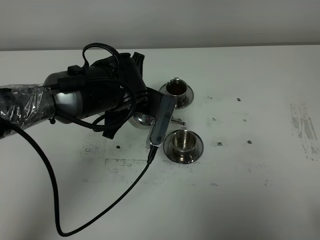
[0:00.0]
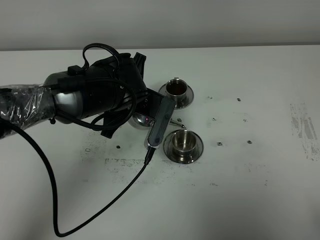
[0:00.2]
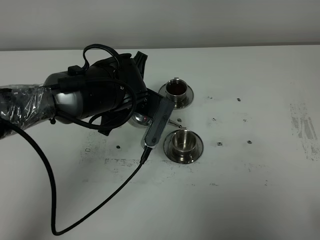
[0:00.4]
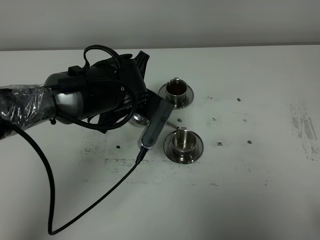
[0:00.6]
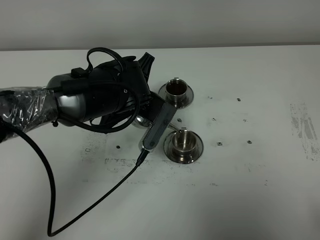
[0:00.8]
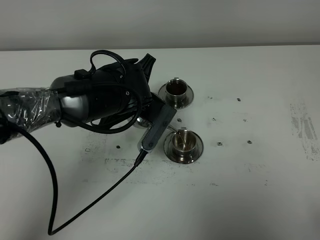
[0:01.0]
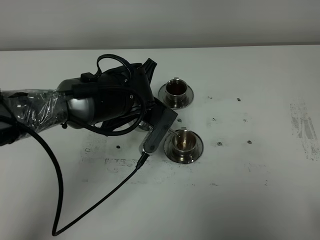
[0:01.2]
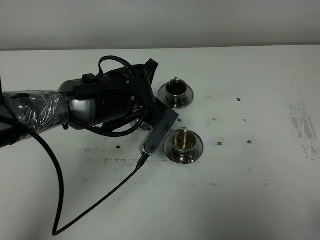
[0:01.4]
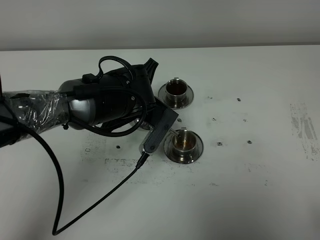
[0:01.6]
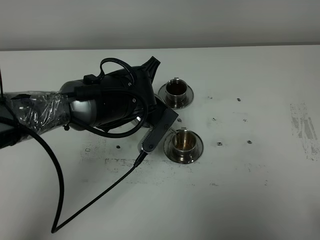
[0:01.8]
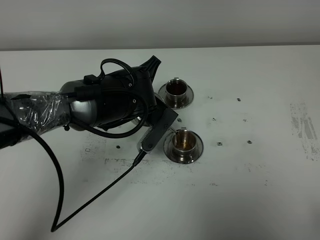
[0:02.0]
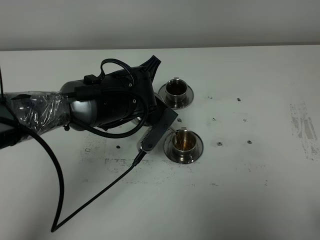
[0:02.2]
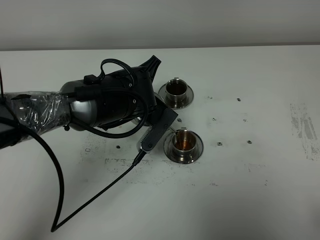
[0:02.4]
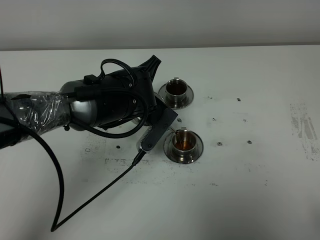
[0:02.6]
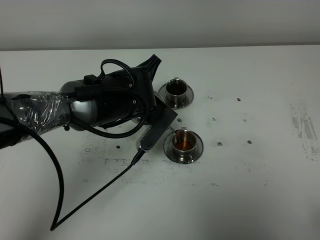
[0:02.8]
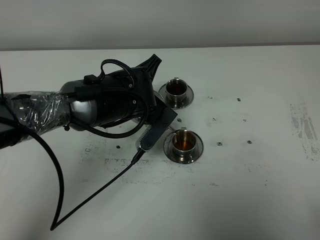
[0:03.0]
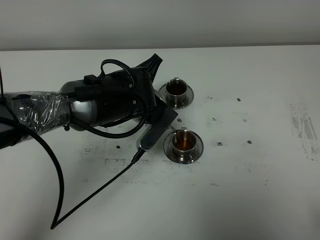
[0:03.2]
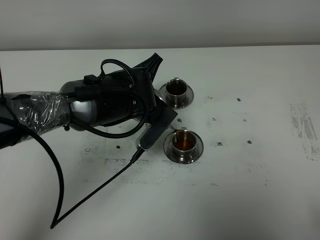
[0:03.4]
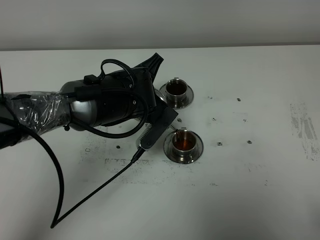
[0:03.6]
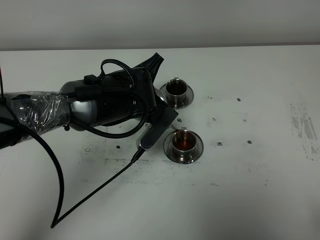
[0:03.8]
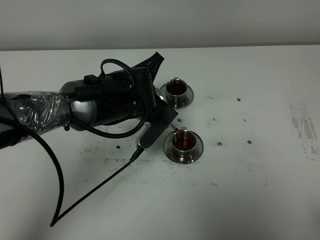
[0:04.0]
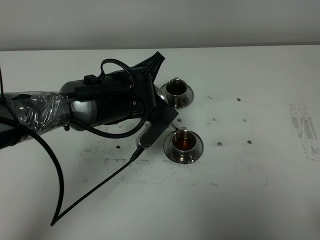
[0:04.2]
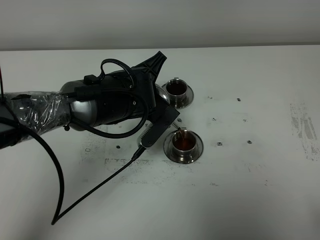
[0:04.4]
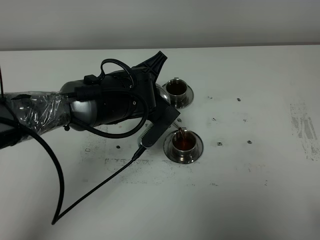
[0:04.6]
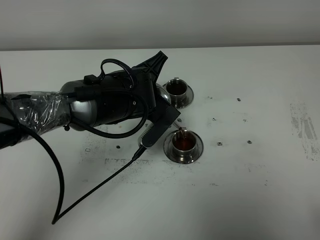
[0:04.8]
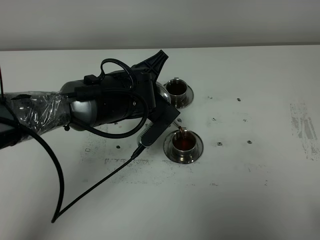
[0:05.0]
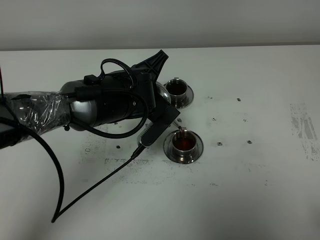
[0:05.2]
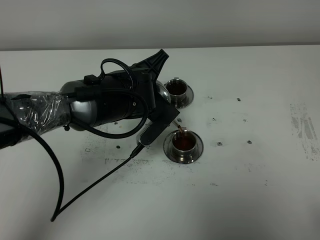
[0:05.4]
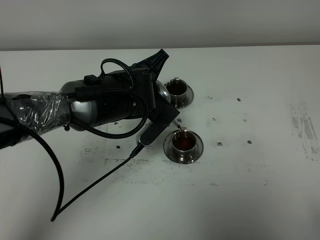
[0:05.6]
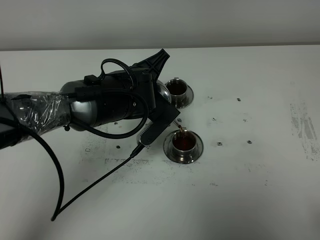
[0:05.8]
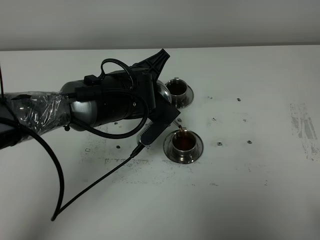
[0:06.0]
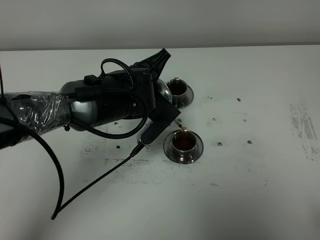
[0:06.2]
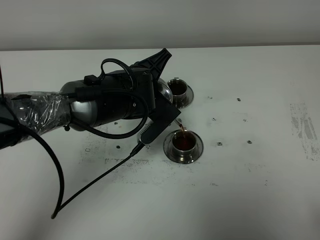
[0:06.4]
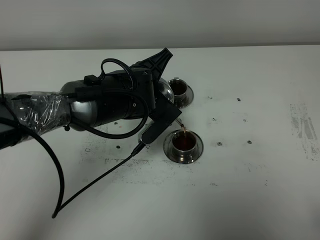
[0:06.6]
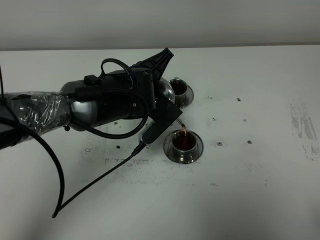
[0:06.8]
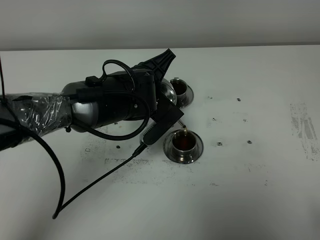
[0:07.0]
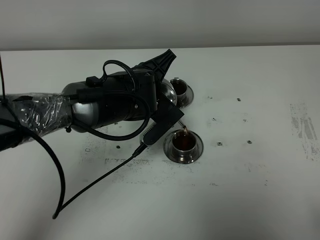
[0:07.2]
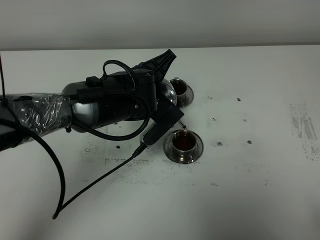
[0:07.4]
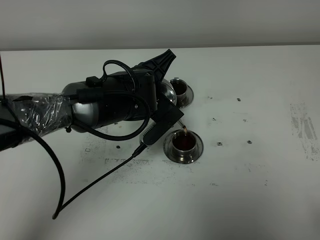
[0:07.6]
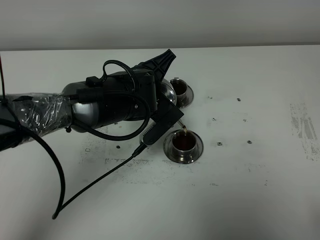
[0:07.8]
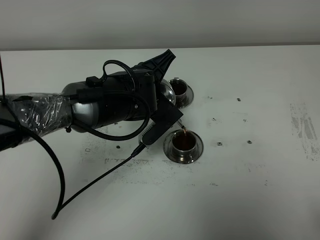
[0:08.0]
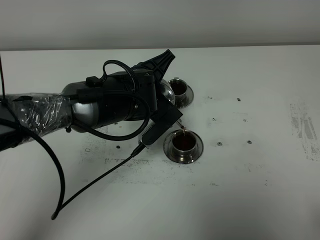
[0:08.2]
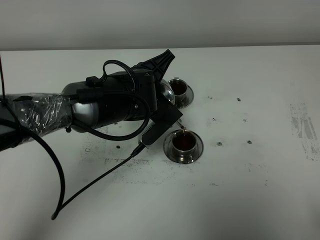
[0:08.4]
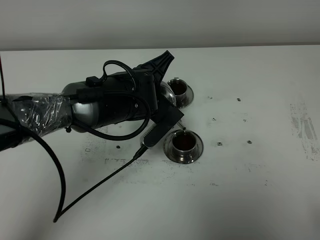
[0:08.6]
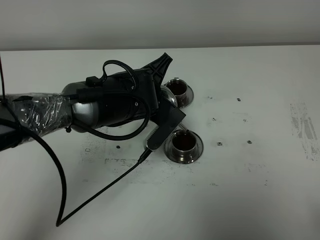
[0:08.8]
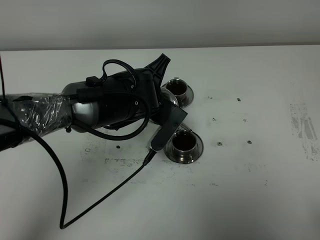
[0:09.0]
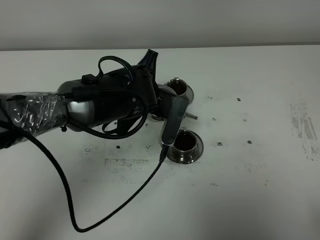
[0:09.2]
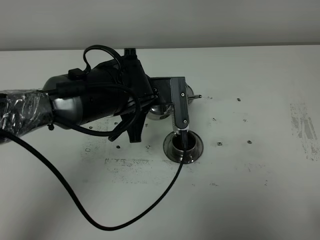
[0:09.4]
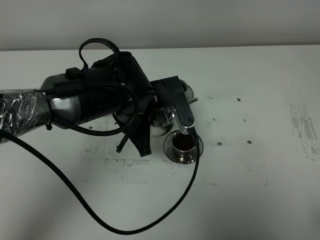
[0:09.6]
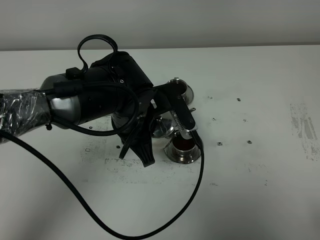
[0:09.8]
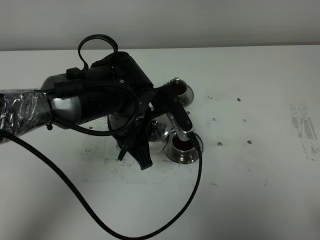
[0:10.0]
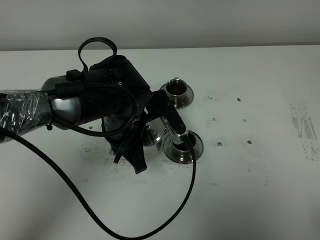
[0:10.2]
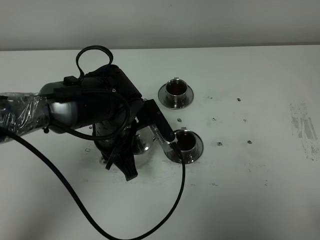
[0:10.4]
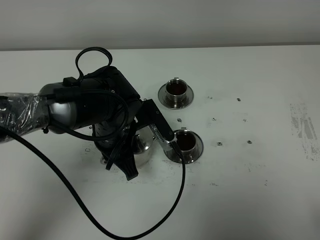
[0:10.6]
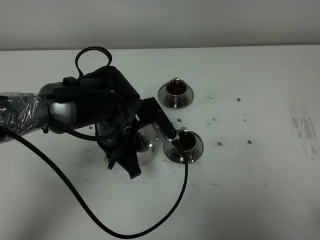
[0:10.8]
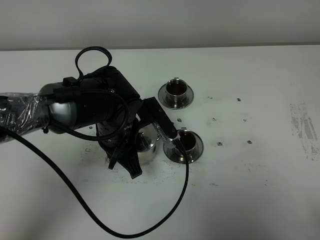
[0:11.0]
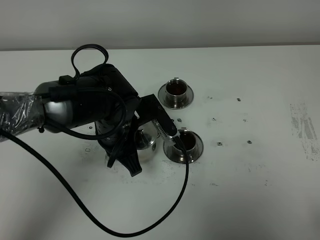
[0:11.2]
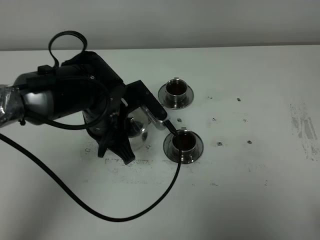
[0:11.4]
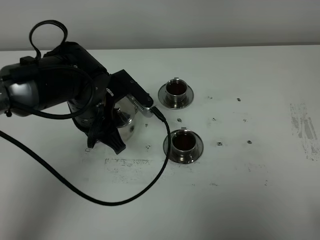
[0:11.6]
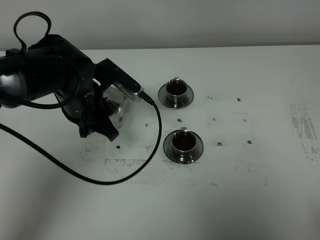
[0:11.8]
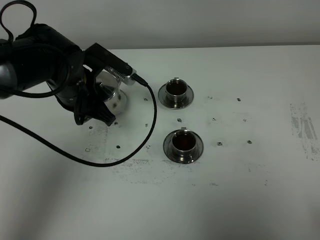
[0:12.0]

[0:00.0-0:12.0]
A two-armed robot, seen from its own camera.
Task of the whole recording: grasp the stainless steel teapot and pour the tea into the two stainless steel teacups one by one, put the stainless steel teapot back in its original place.
Step, 0:00.0 to 0:09.4: Pour tea into the teacup with the left gripper.
0:00.0 to 0:01.6: The grippers stay close to where they were, moving slightly.
0:01.6 to 0:03.0: The grippers stay close to where they were, moving slightly.
0:03.0 to 0:04.4: The two grippers keep their place.
0:04.4 to 0:06.0: Neither gripper changes place.
0:06.0 to 0:07.6: The two grippers keep their place.
0:07.6 to 0:09.0: The grippers move only a little.
0:09.0 to 0:10.4: The left gripper changes place by roughly 5 cm.
0:10.4 to 0:12.0: The left gripper moves to the left and forward, about 10 cm.

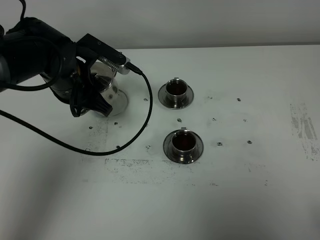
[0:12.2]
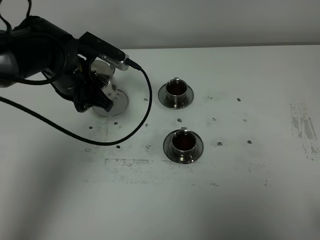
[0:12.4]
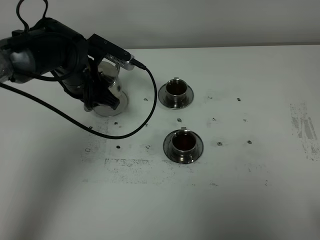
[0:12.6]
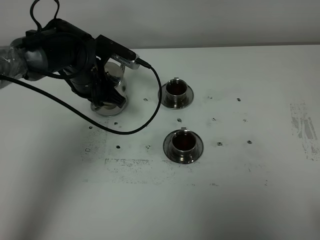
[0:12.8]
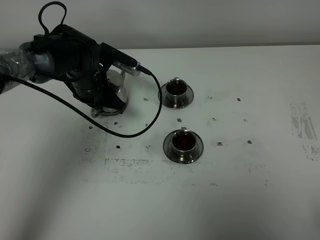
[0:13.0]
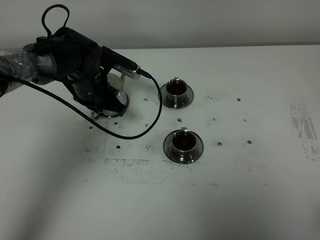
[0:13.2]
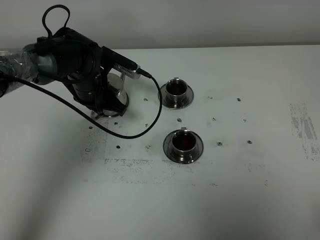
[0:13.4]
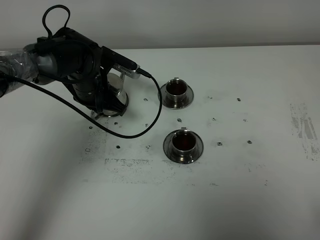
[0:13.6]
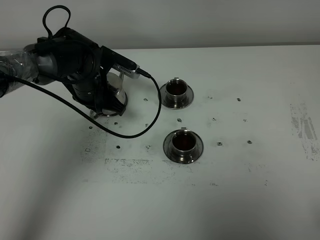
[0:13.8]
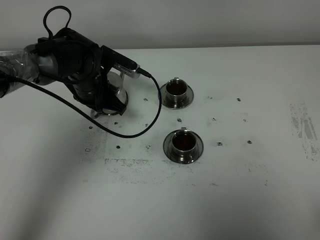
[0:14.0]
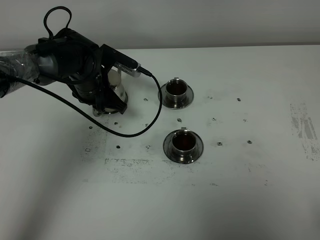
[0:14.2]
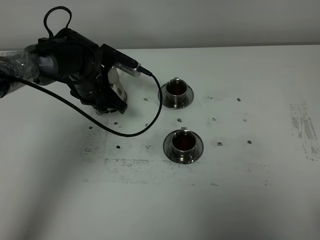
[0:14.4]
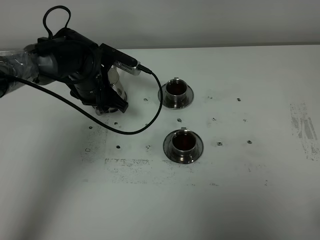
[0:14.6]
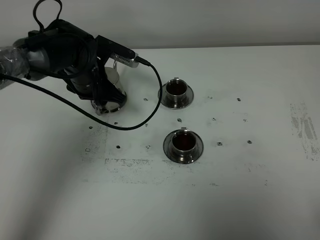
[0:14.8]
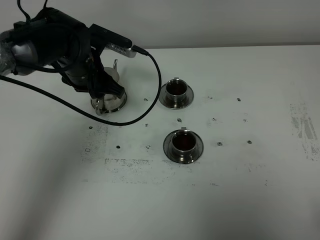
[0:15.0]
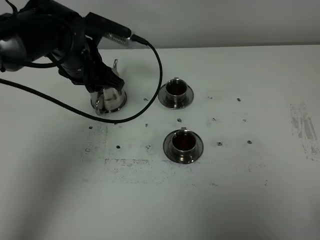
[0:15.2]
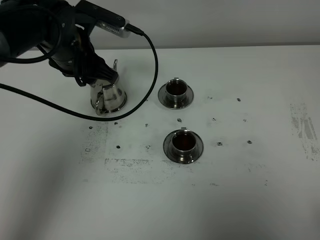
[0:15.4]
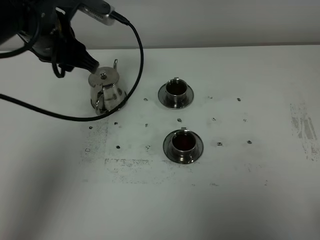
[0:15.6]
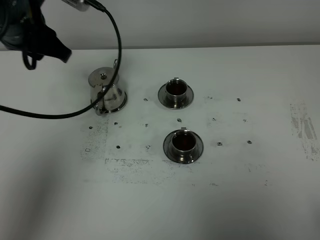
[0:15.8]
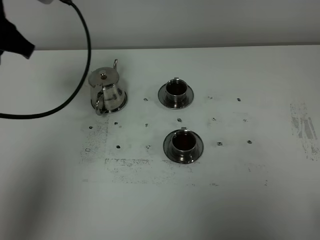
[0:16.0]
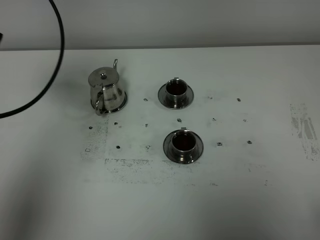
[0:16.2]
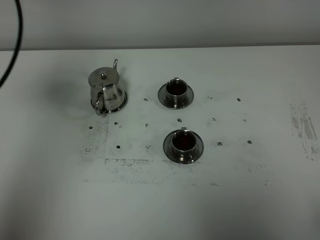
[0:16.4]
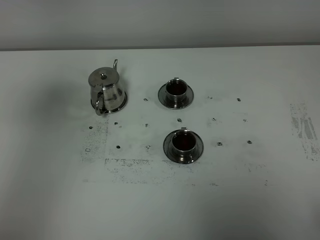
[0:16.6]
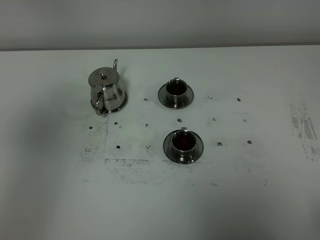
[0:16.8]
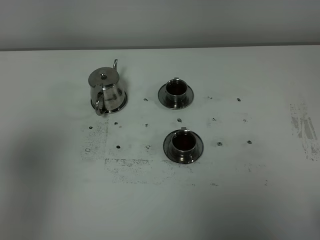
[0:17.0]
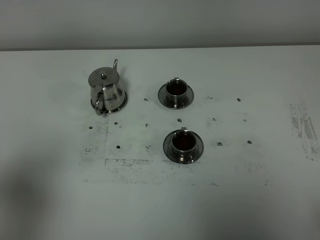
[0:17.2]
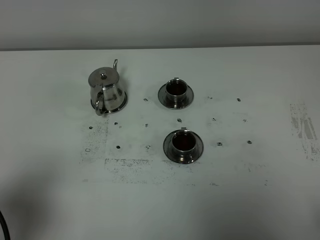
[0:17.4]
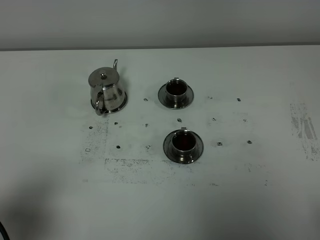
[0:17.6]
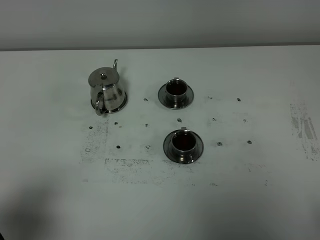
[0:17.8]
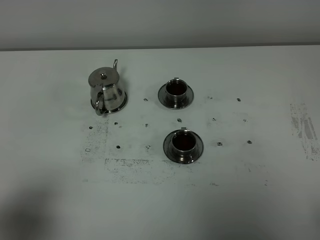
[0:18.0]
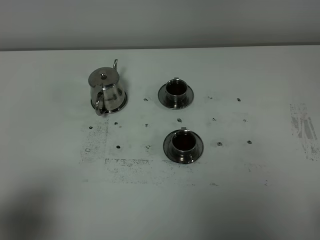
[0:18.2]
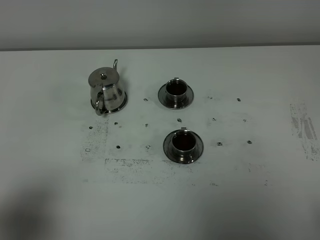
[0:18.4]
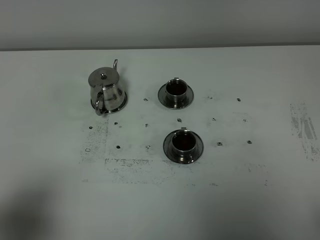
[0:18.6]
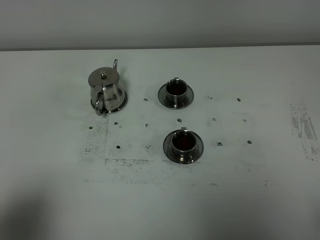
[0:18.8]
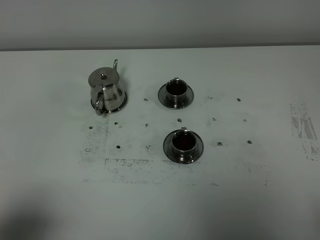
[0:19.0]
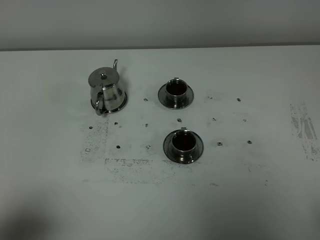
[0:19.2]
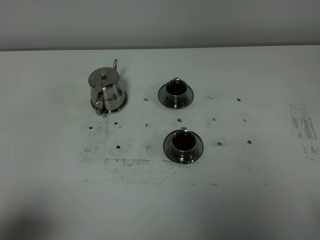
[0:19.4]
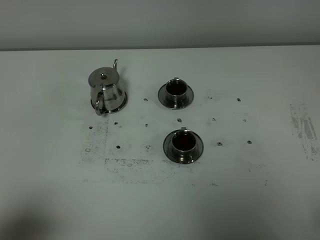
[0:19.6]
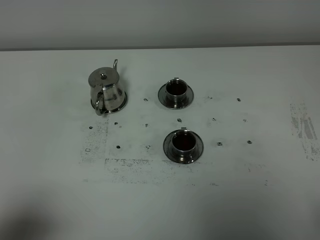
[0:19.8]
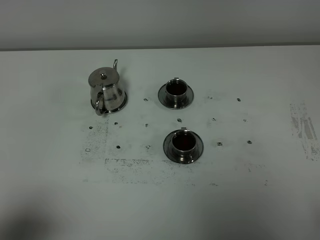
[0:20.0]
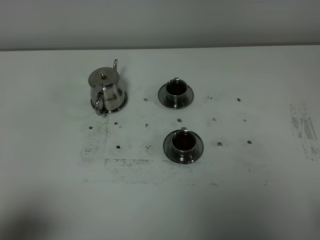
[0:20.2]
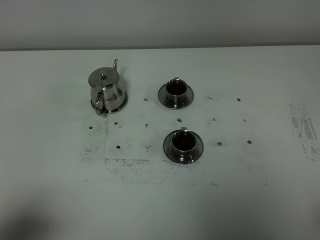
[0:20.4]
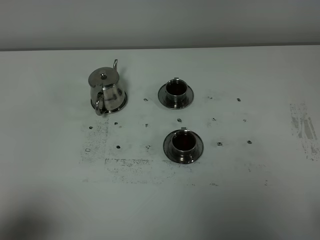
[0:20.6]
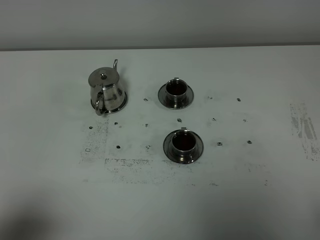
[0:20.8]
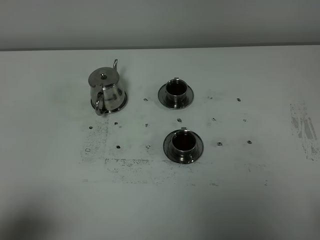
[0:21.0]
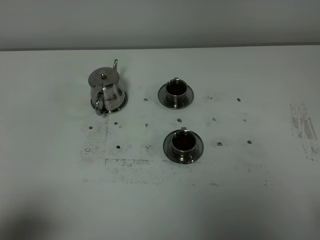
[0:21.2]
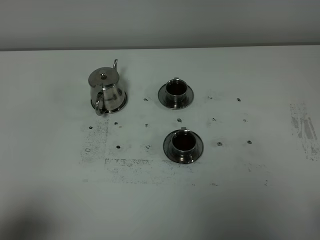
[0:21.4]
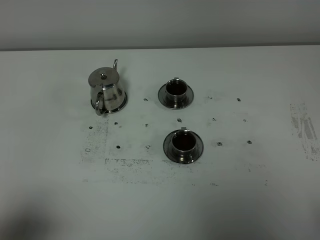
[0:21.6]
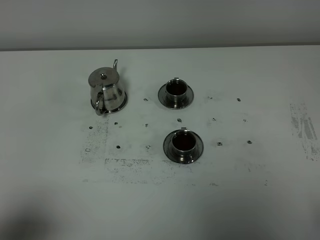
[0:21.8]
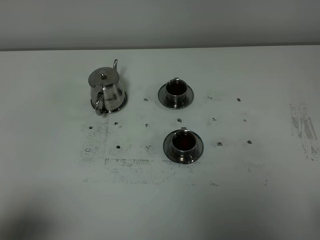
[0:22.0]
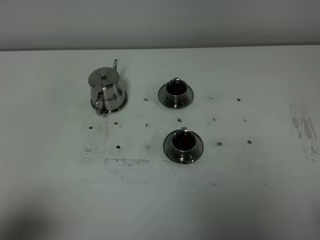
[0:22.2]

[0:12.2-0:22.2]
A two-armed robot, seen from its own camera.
Task of the whole recording: grasp the stainless steel teapot and pour the tea into the two stainless steel teacups one by one, put the stainless steel teapot back in its original place.
0:12.2 to 0:13.6: The left gripper heads downward and forward, covering about 10 cm.
0:13.6 to 0:15.0: The left gripper is displaced upward by about 5 cm, and opens its fingers.
0:15.0 to 0:16.4: The left gripper moves upward, backward and to the left, roughly 30 cm.
0:16.4 to 0:18.0: The left gripper travels backward and downward by about 25 cm.
0:19.4 to 0:22.2: Both grippers stay put.
